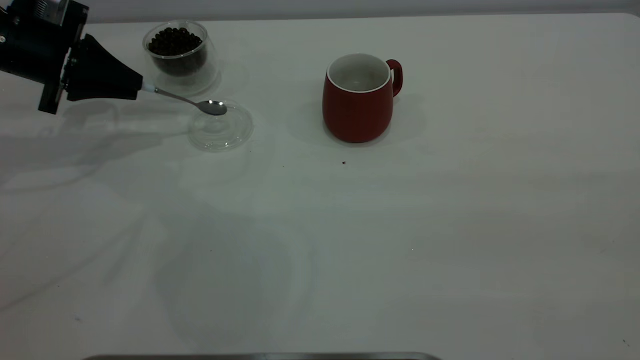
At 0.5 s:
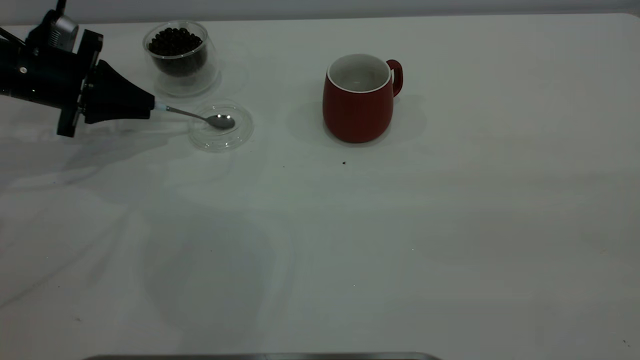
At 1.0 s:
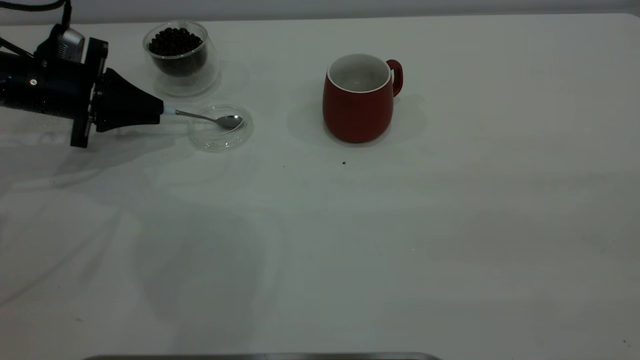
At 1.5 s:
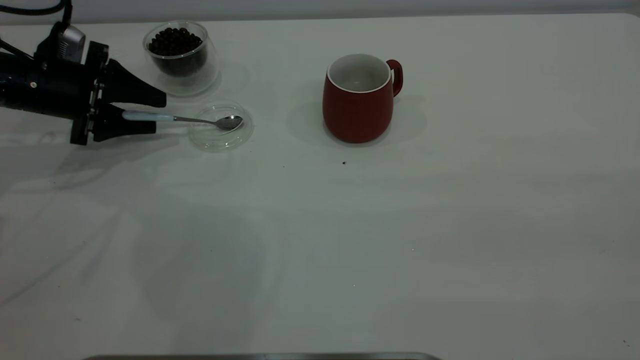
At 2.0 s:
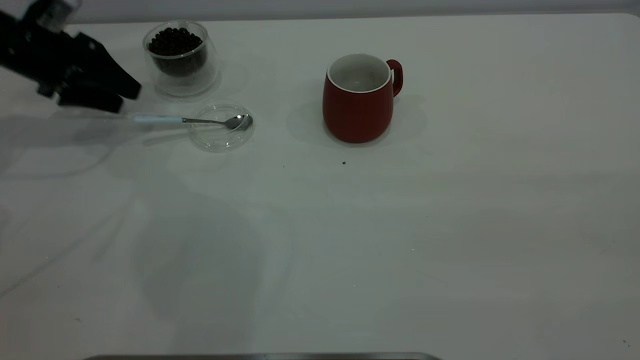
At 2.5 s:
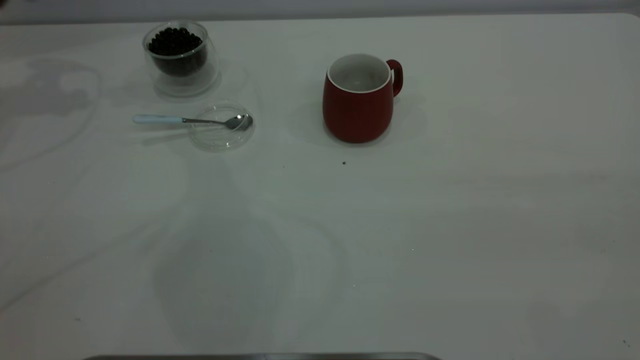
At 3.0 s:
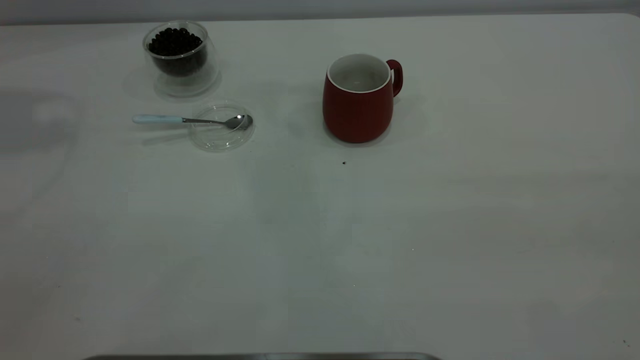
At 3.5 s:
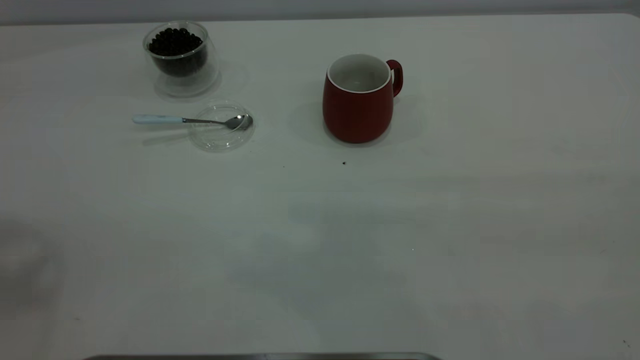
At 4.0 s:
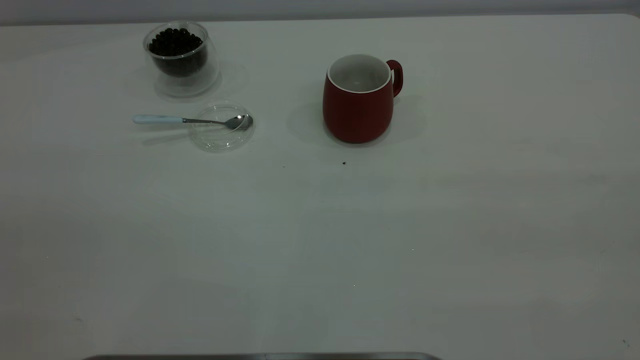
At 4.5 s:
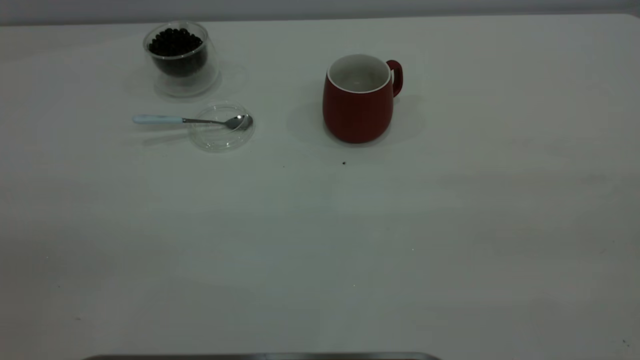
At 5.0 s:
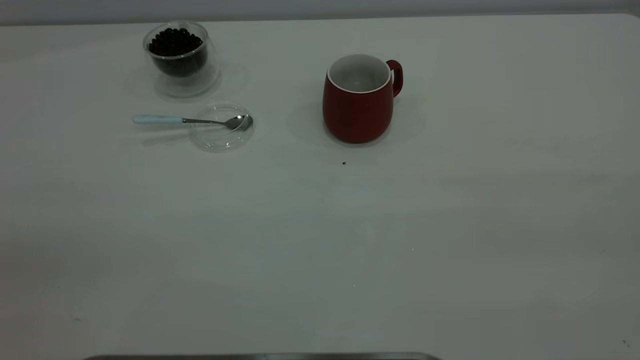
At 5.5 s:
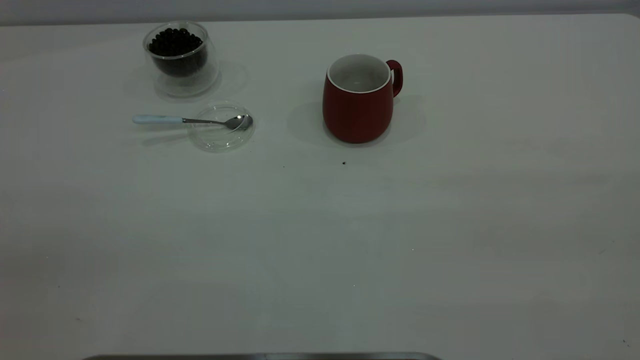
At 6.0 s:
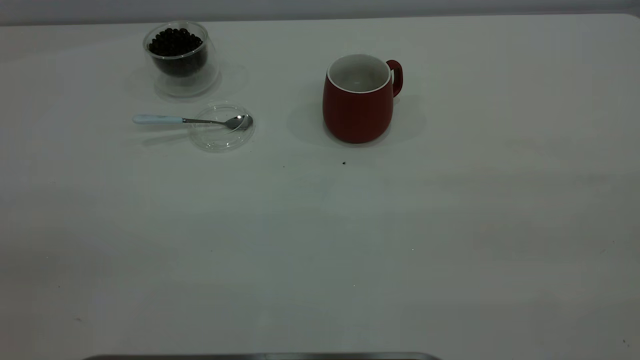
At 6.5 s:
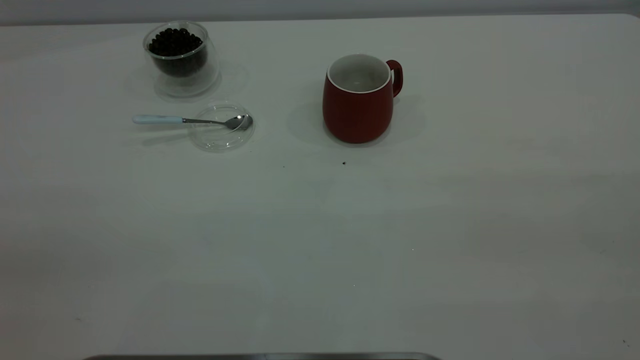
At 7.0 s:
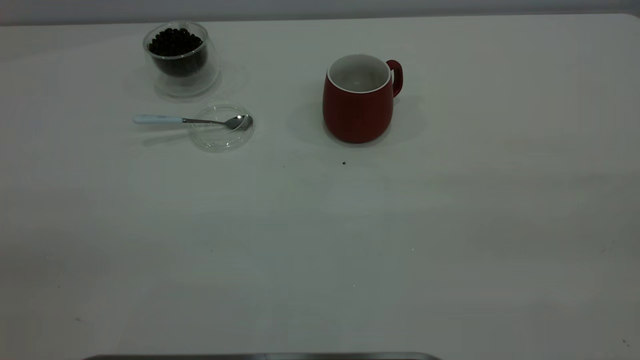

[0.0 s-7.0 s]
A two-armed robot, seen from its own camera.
Task of the whole recording: the right gripper place the red cup in the center of the table, the left gripper take the blue spoon from the cup lid and scoop out the coffee beans from the coffee cup and put them into the red cup, the left gripper put the spoon back into the cup lid.
Step, 0.0 to 2.0 s: Place the spoon back in its original place.
0.0 to 2.0 s: The left gripper shifts by approximately 5 cm, and opens up.
2.0 to 3.5 s: The left gripper is displaced upward and backward by approximately 40 cm.

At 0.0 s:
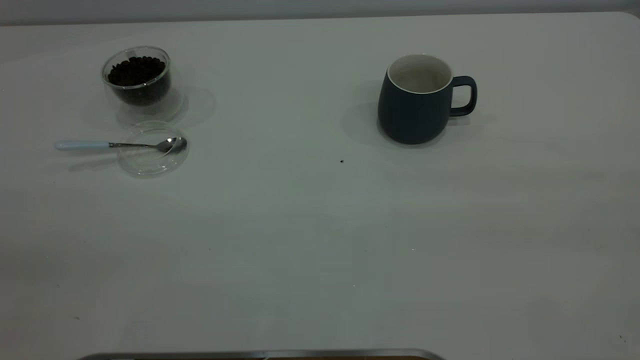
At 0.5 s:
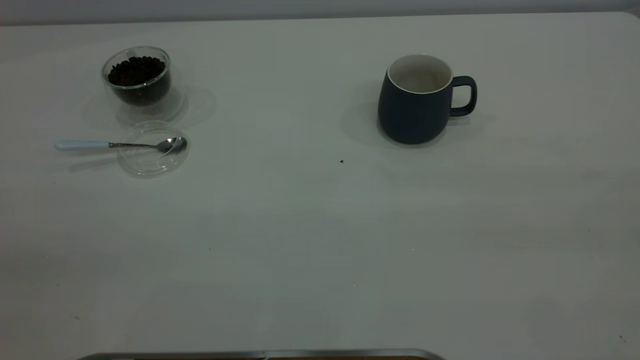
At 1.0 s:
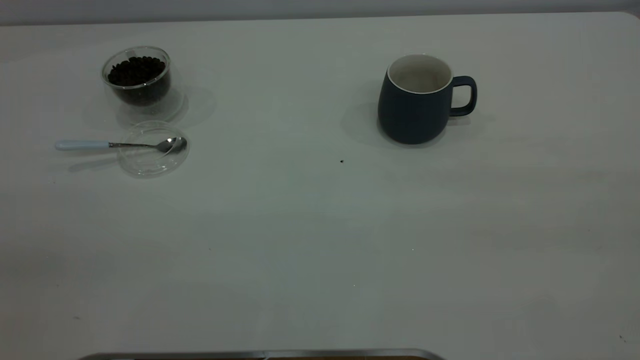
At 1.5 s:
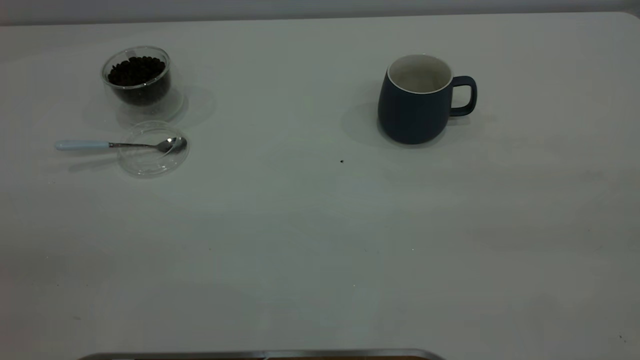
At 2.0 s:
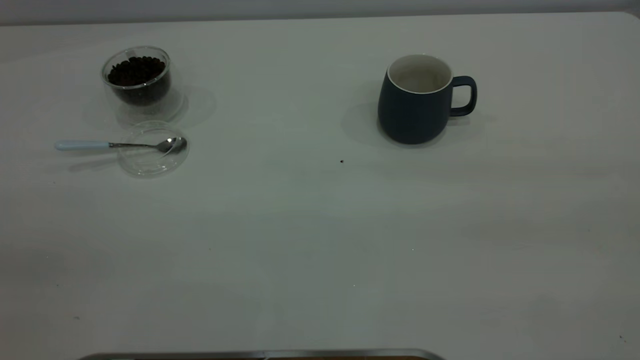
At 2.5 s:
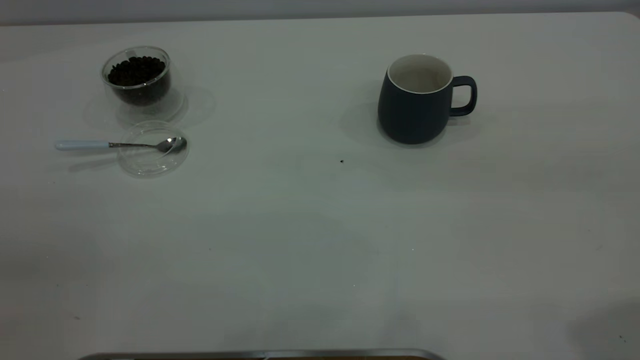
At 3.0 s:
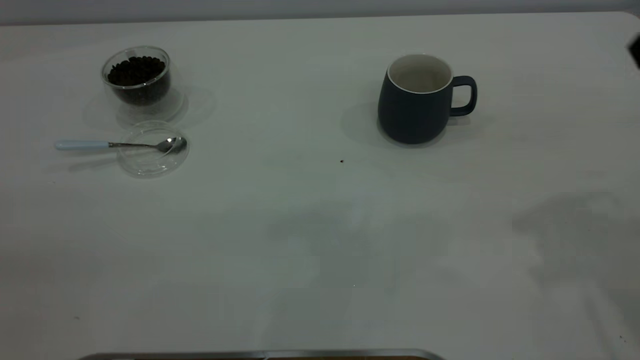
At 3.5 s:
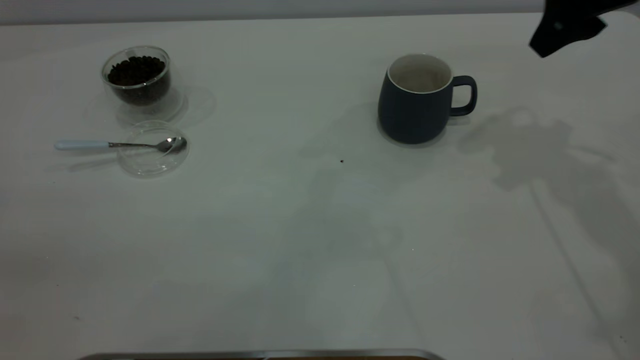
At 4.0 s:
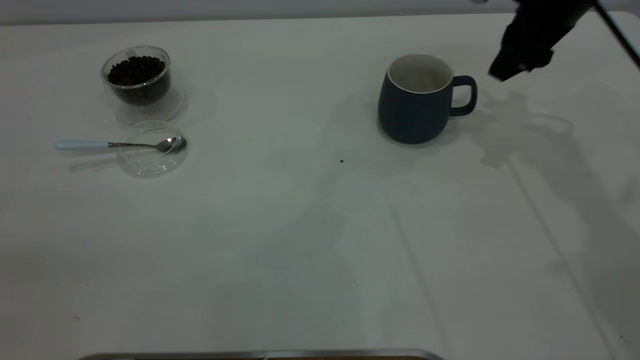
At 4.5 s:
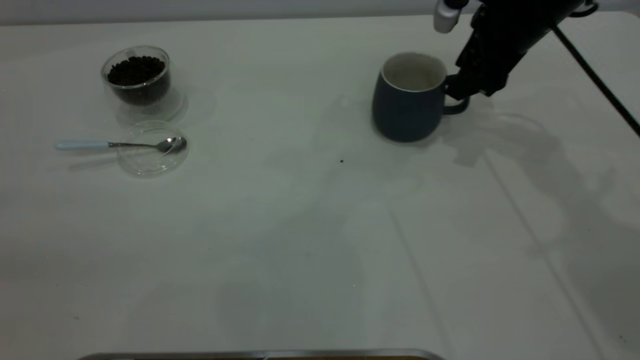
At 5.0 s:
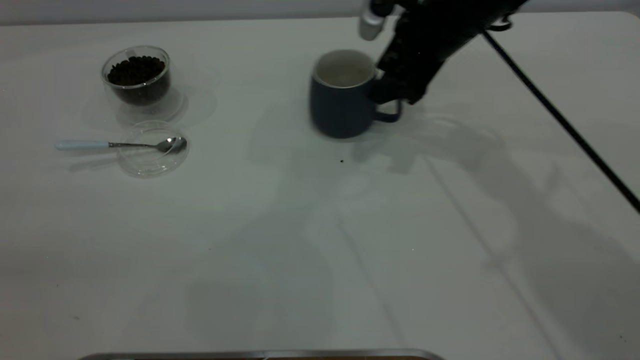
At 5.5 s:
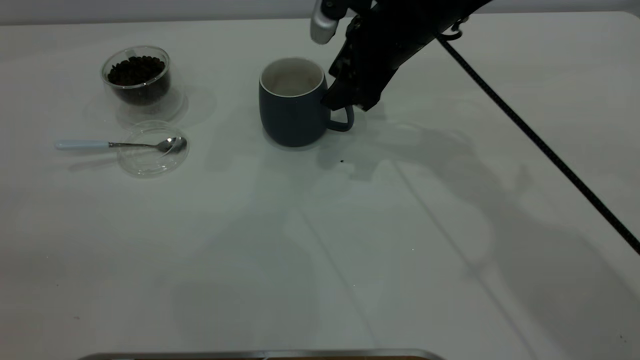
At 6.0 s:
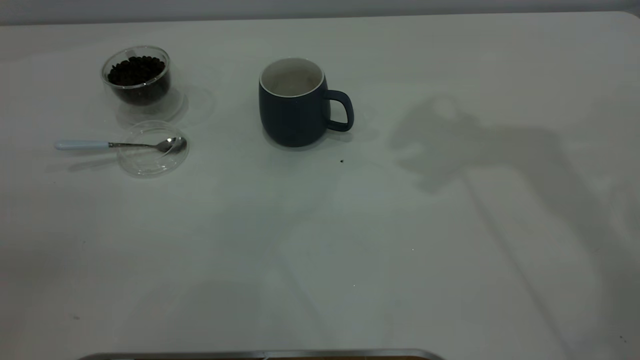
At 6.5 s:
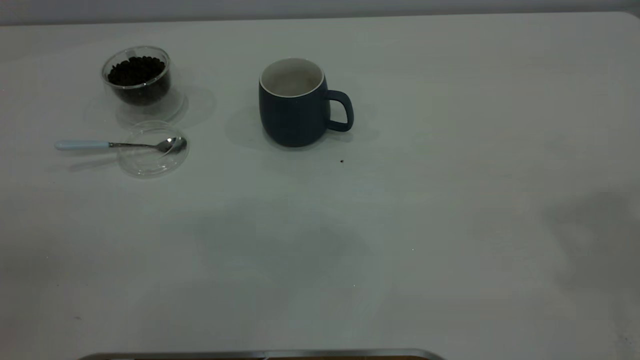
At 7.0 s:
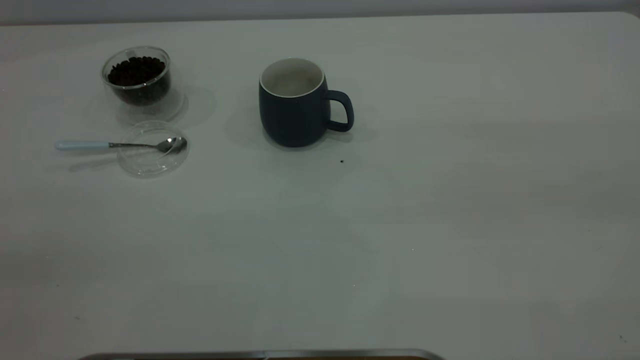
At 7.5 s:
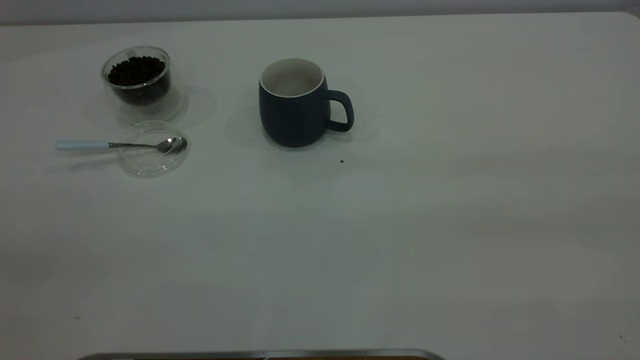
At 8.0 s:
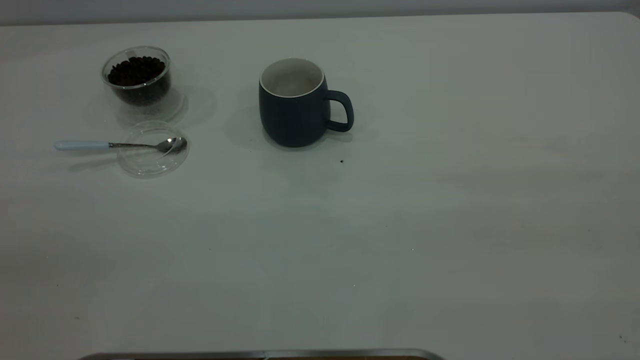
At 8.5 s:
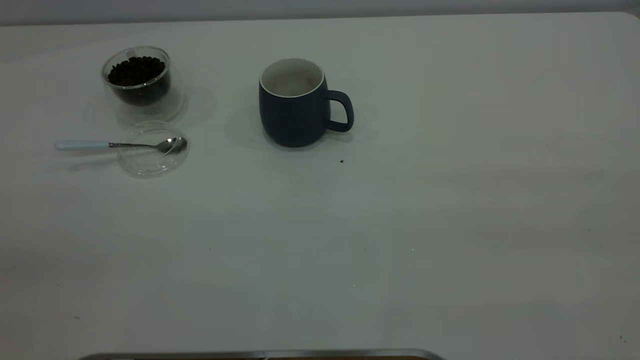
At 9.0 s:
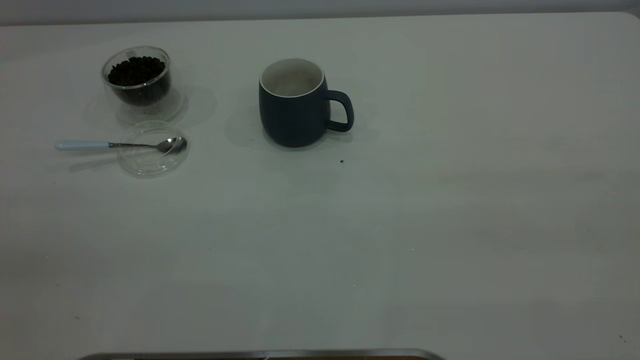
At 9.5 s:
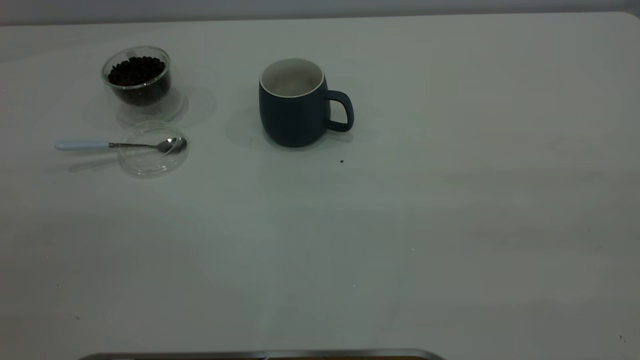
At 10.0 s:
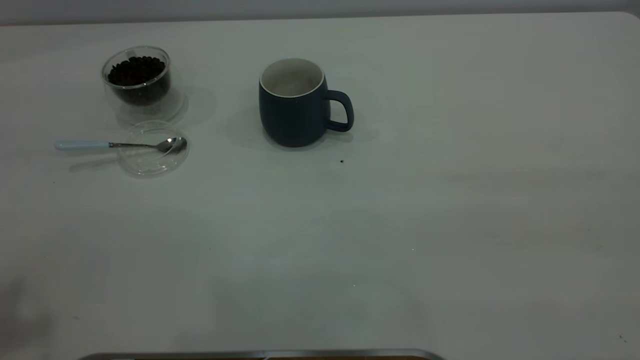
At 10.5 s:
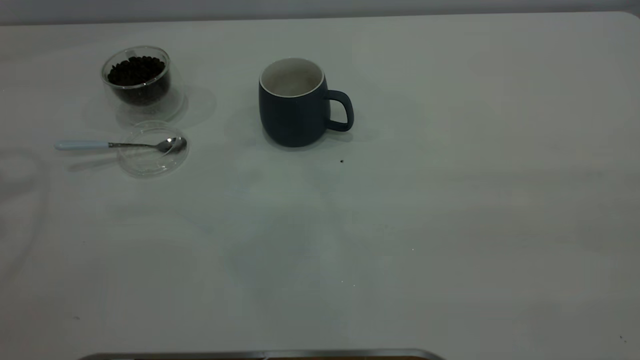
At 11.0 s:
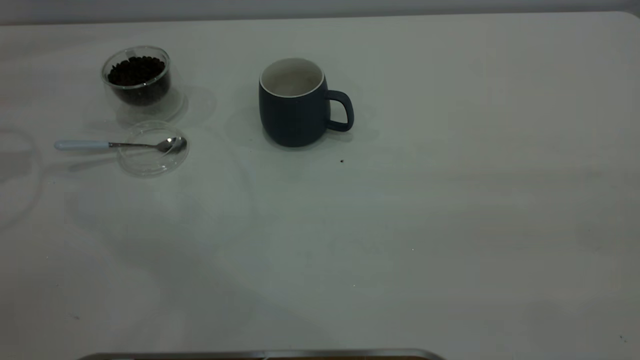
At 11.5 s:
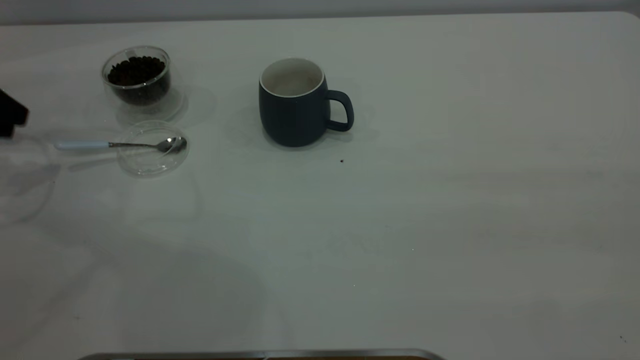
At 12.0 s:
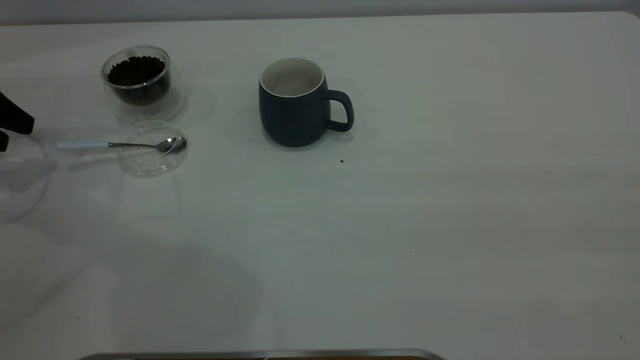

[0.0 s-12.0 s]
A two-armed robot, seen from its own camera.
Task of the whole recording: the right gripper place the grey cup in the center of the table, the left gripper take the blue spoon from the cup lid and scoop out the coffee beans from the coffee cup and put them into the grey cup, the left gripper put the spoon back into the cup lid.
Step, 0.0 to 5.5 s: Move the cup to the center of view.
2.0 to 4.0 s: The right gripper is displaced forward and downward by approximately 50 cm.
4.0 to 6.0 s: The right gripper goes about 15 cm upward.
10.0 to 12.0 s: The left gripper heads downward, forward and to the left, covering roughly 35 cm, and opens its fingers.

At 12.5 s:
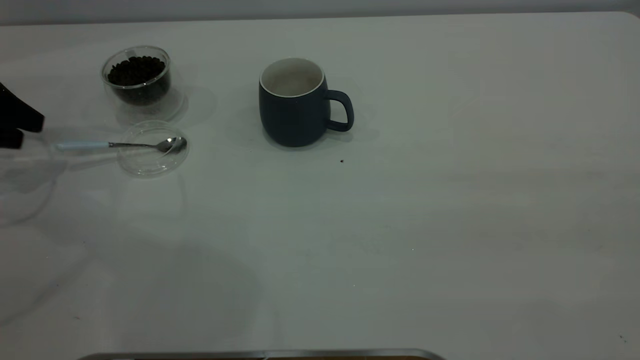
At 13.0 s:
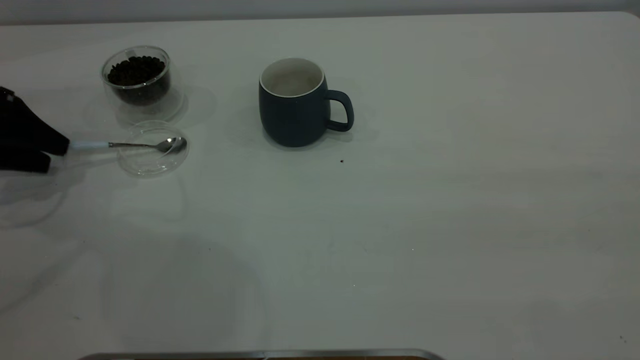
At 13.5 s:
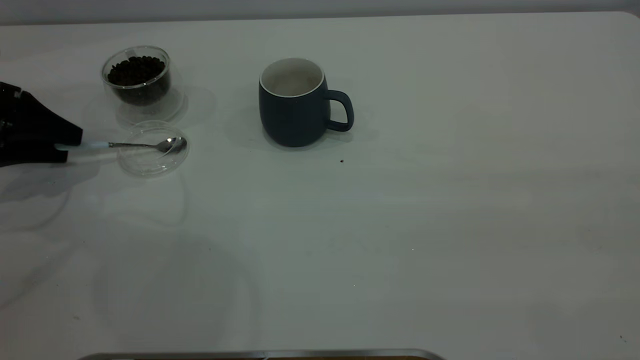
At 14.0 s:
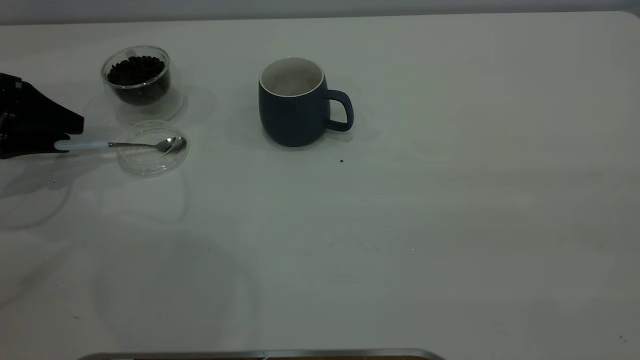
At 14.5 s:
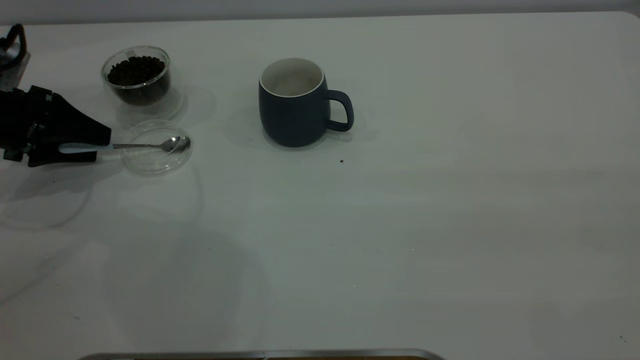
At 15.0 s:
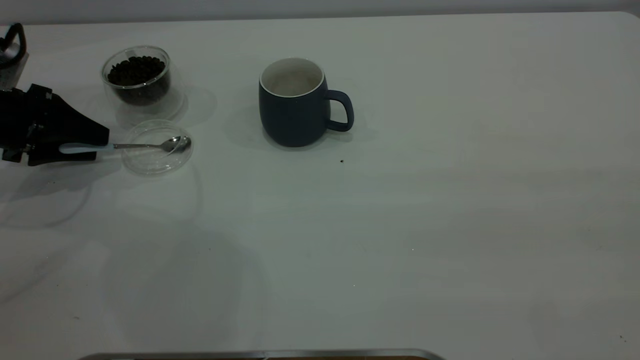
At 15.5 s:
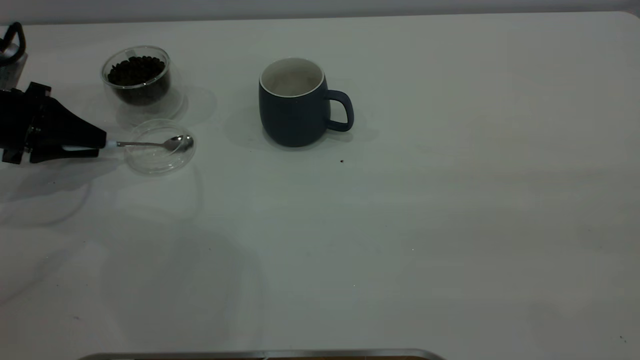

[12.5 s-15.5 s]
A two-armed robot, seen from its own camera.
Task of the whole recording: the right gripper place the grey cup in the center of the table, the left gripper take the blue spoon from the cup lid and scoop out the coffee beans from the coffee cup and put them into the grey cup, the left gripper put the spoon back into the cup lid.
12.5 to 14.0 s: The grippers make only small movements.
14.0 to 15.5 s: The left gripper closes.
